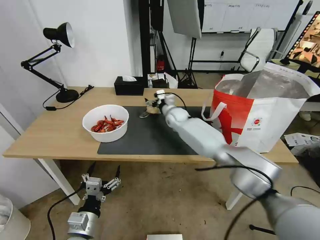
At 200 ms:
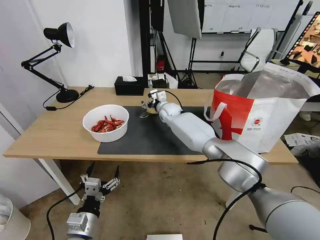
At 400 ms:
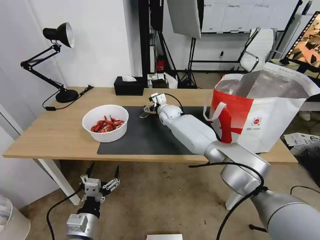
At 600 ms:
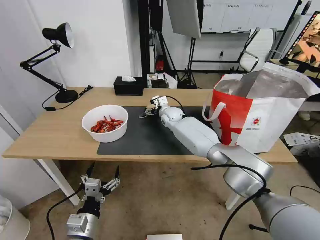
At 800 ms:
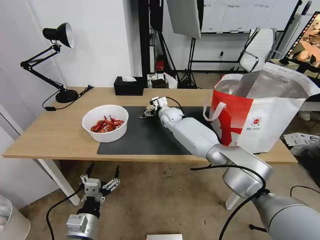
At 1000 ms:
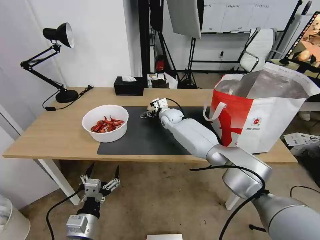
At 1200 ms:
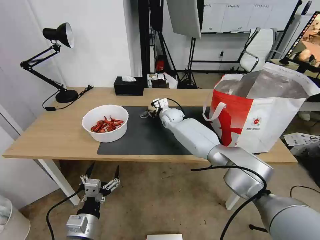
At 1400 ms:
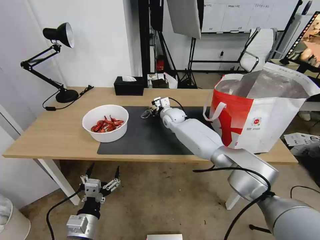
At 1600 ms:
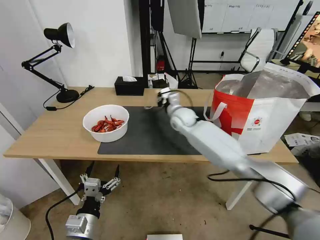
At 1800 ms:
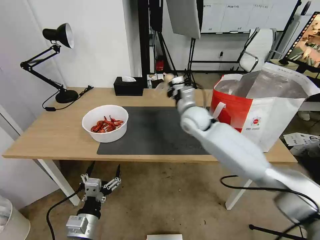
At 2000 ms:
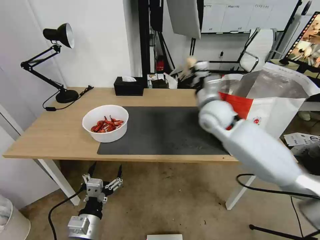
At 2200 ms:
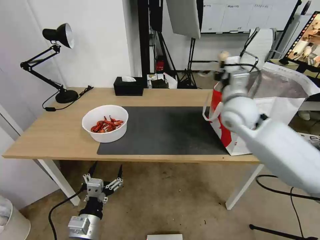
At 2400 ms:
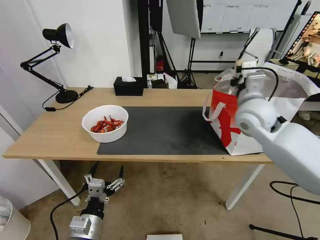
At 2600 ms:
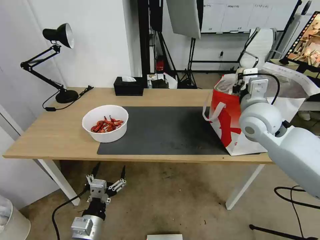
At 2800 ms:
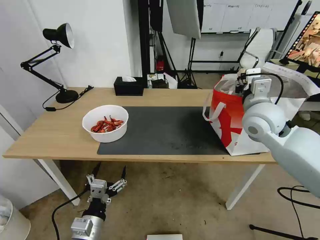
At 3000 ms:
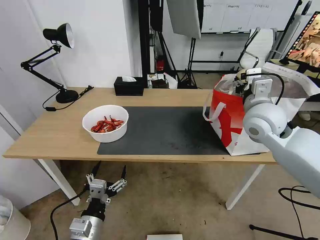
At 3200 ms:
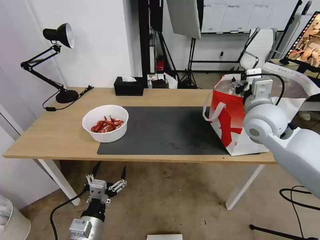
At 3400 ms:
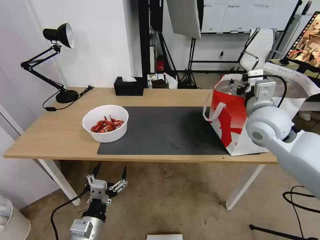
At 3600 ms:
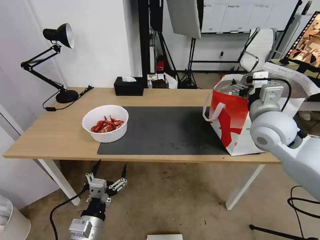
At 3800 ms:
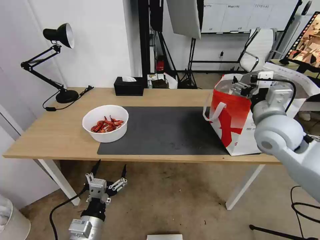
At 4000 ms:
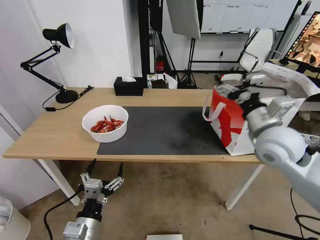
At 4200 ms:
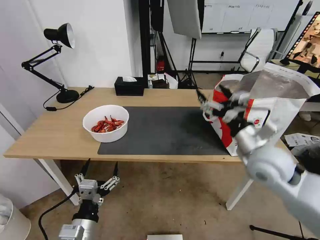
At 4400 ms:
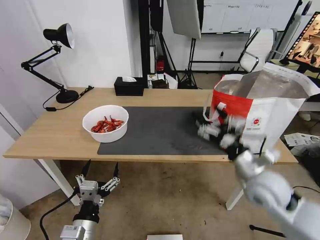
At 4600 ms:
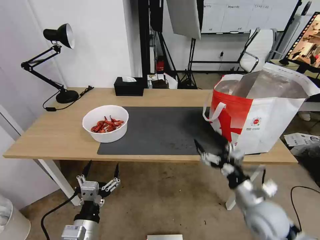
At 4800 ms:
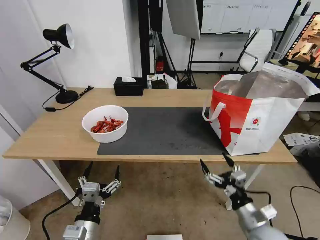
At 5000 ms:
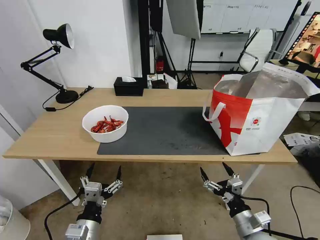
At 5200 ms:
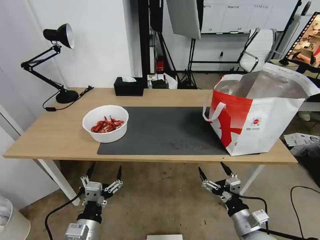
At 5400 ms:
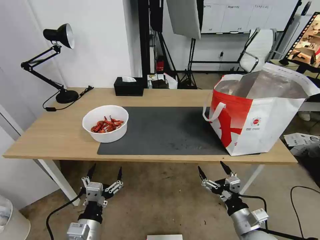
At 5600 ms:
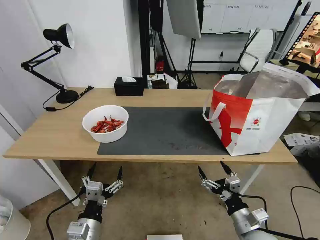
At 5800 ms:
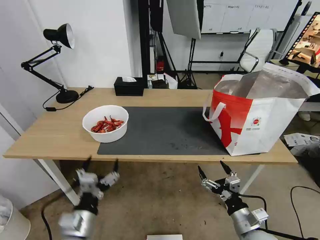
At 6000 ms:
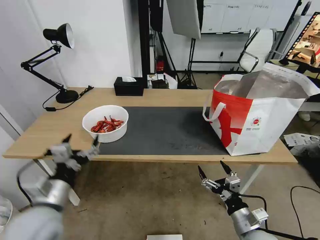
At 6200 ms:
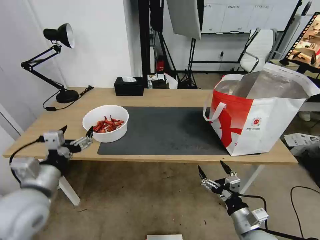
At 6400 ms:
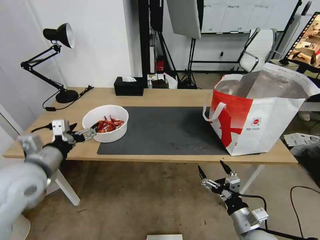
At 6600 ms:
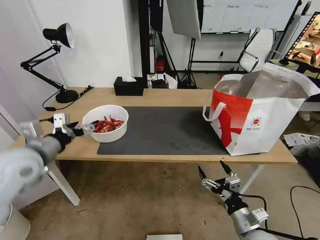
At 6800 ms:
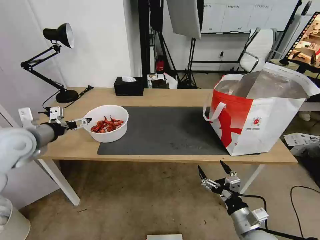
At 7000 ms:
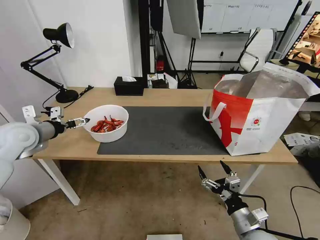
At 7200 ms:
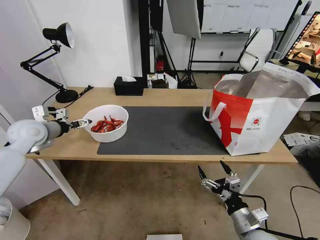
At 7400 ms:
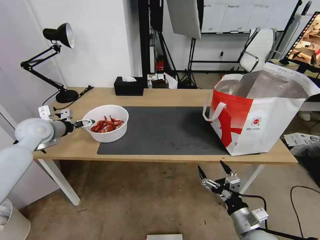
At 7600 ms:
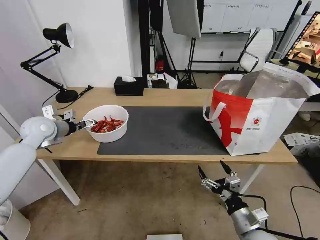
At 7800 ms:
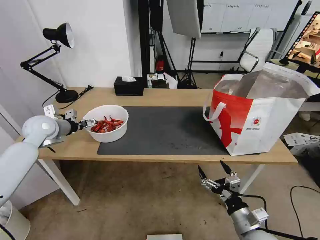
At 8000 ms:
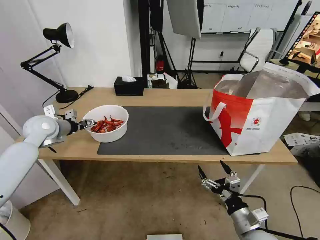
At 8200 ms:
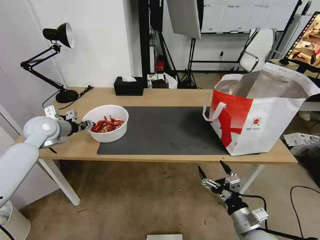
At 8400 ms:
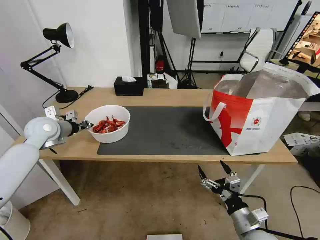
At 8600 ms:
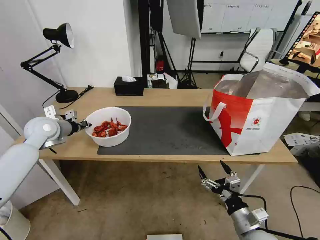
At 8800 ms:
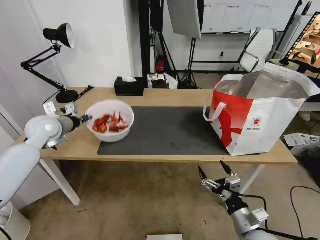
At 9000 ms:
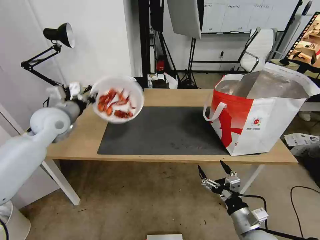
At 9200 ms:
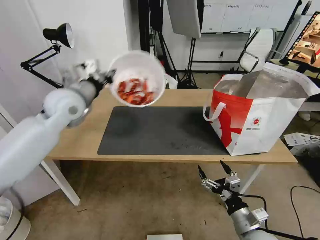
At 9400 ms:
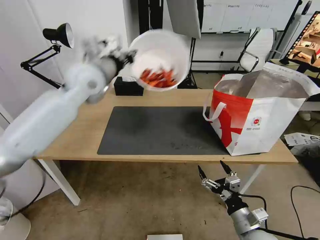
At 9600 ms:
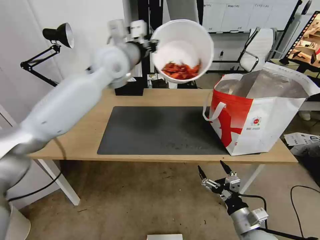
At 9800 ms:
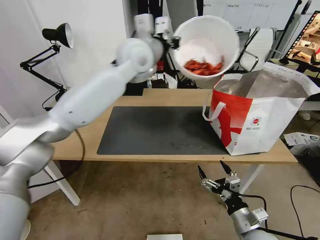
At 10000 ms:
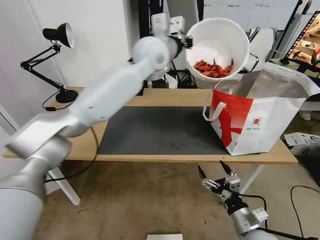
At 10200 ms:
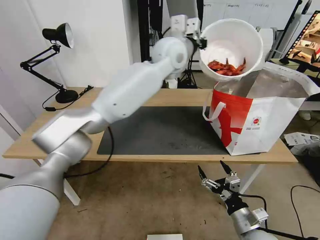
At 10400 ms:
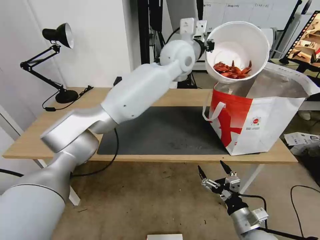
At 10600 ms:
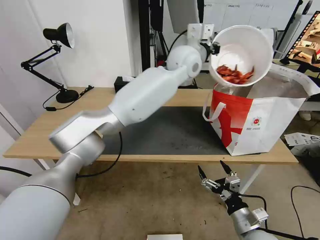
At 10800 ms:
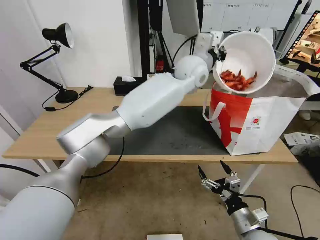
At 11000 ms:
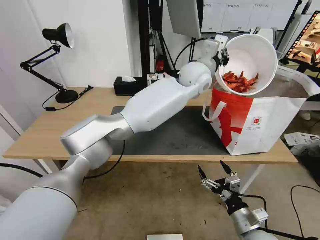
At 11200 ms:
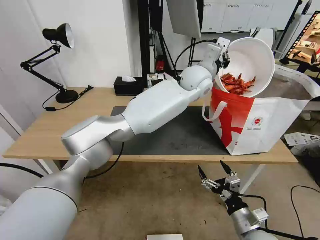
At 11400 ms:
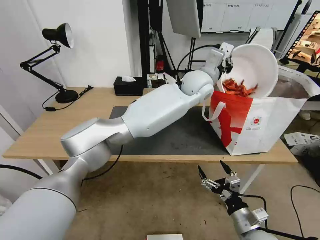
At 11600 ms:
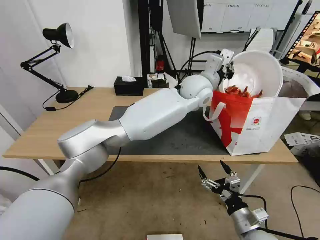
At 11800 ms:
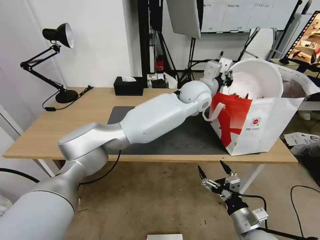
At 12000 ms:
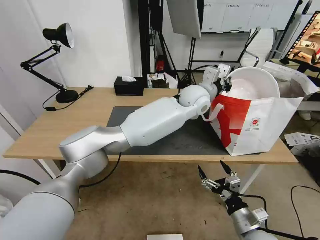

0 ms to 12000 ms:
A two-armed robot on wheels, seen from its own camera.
Task of the whole recording: Pick up the trash from the table and place it into the takeout bag.
0 ms to 1600 ms: The right gripper goes about 5 cm backward, and closes its fingers.
1600 ms to 3000 ms: The right gripper goes about 25 cm to the right, backward and upward, and opens.
3000 ms to 4400 ms: The right gripper heads backward and downward, covering roughly 20 cm, and opens its fingers.
4400 ms to 6000 ms: The left gripper heads upward, forward and to the left, covering about 10 cm, while the right gripper goes approximately 20 cm downward and backward.
6000 ms to 7600 ms: The left gripper moves forward and to the left, approximately 30 cm.
7600 ms to 9000 ms: The left gripper is displaced to the right by approximately 5 cm, and closes up.
9000 ms to 10400 ms: The left gripper travels to the right by about 40 cm.
10400 ms to 12000 ms: The left gripper shifts approximately 15 cm downward and to the right.

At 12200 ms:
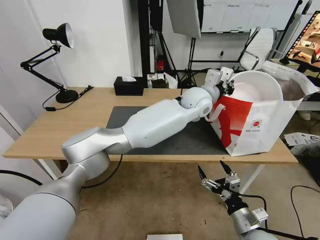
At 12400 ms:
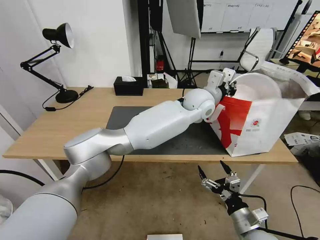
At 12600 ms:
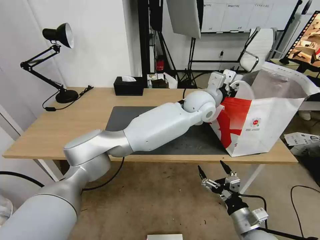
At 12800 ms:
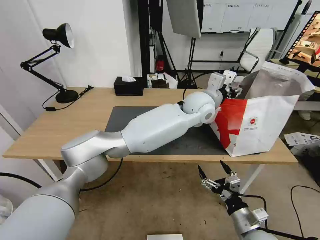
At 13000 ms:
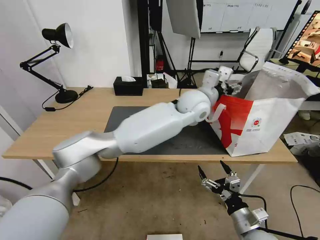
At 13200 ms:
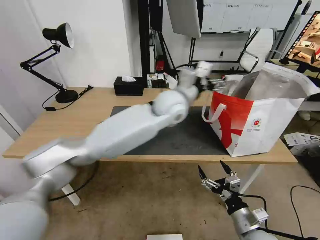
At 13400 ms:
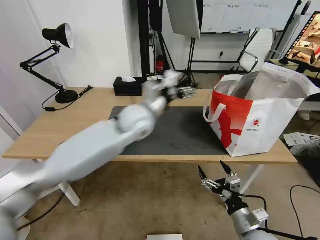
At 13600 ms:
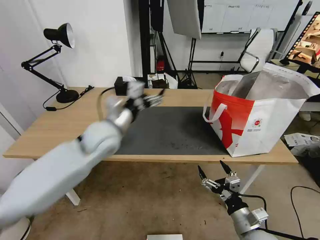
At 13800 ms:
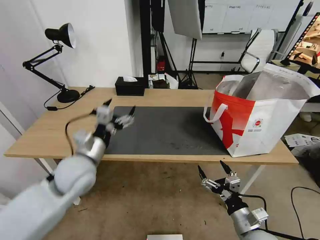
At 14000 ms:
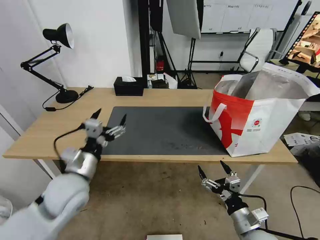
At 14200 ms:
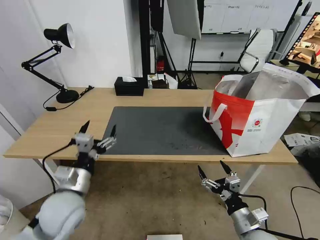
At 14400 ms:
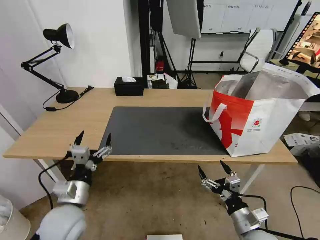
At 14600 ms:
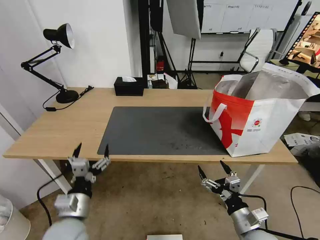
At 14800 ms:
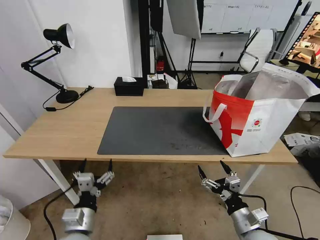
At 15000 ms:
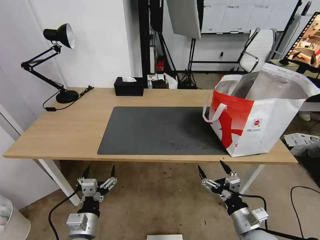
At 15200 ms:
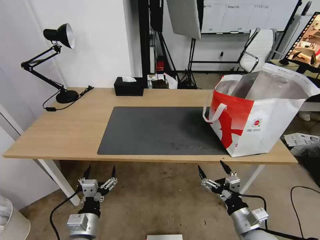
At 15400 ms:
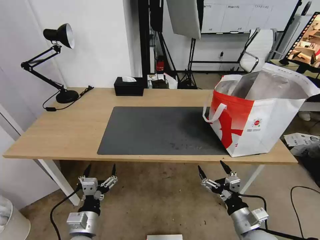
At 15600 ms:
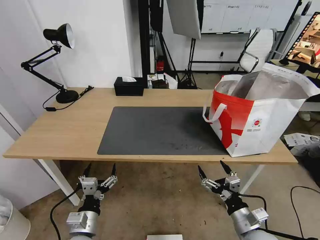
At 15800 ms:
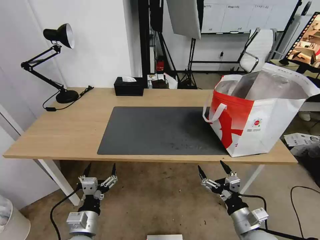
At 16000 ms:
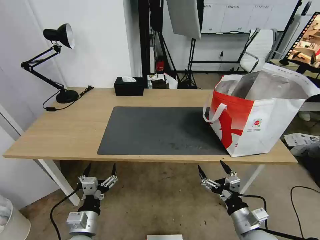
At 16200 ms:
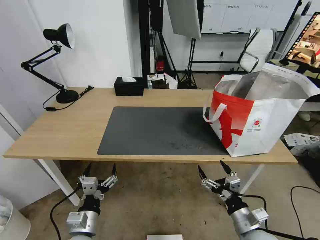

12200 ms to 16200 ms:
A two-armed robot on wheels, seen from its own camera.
Task of the whole recording: Pick up the trash from the table and place it into the takeout bag.
12200 ms to 13600 ms: The left gripper moves to the left and backward, about 30 cm, and opens.
13600 ms to 14800 ms: The left gripper travels backward and downward by roughly 30 cm.
14800 ms to 16200 ms: The grippers move only a little.

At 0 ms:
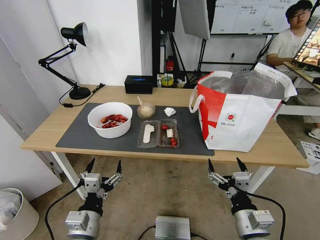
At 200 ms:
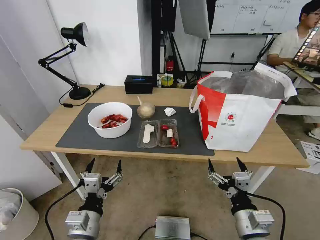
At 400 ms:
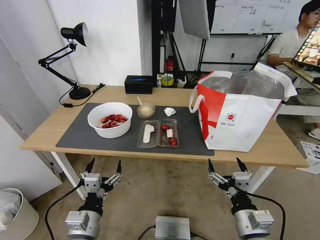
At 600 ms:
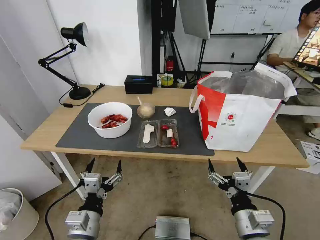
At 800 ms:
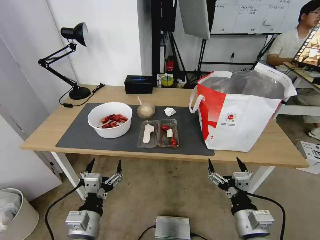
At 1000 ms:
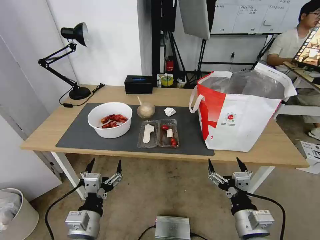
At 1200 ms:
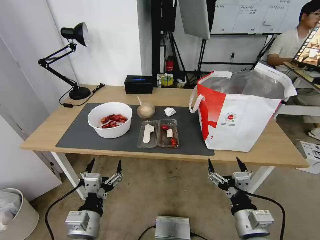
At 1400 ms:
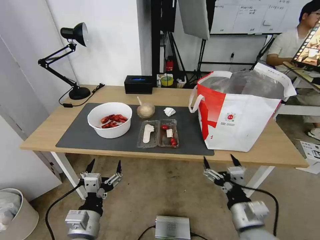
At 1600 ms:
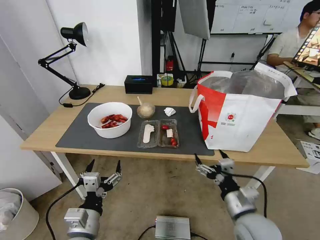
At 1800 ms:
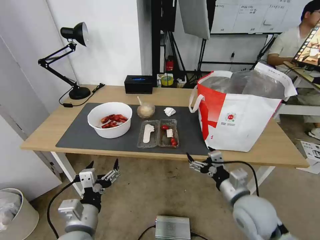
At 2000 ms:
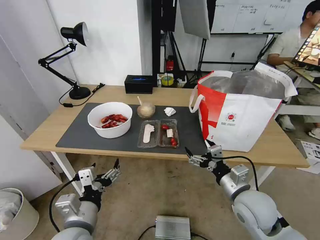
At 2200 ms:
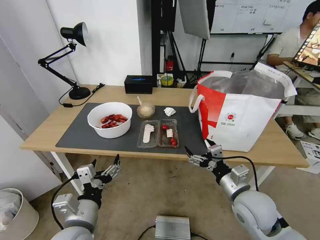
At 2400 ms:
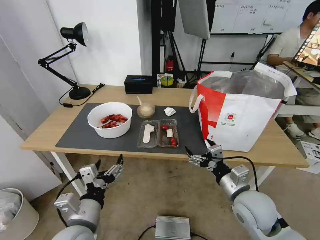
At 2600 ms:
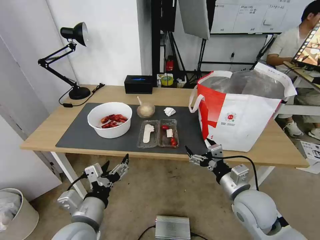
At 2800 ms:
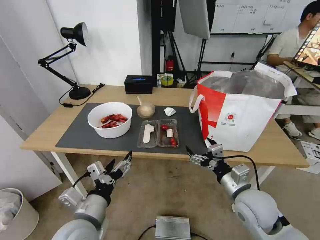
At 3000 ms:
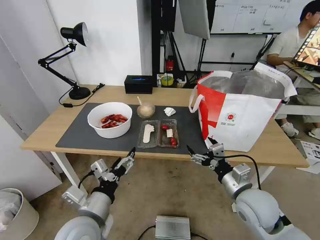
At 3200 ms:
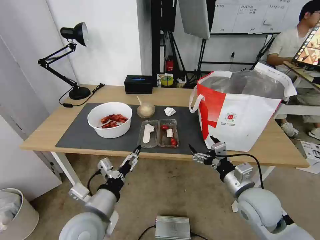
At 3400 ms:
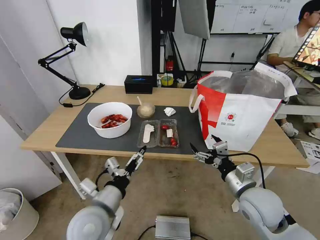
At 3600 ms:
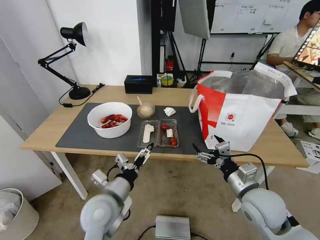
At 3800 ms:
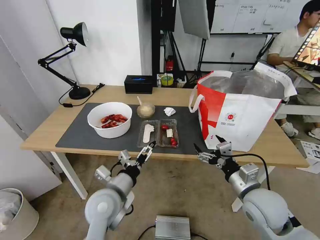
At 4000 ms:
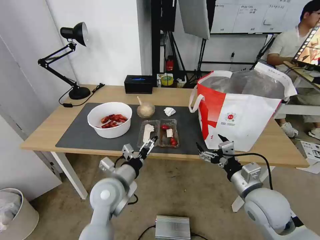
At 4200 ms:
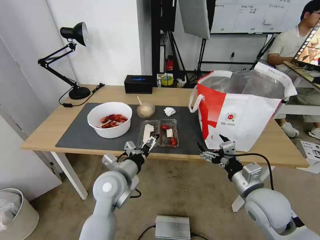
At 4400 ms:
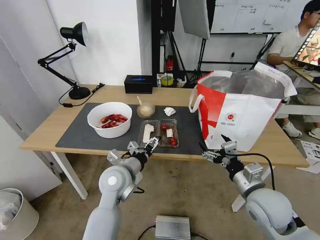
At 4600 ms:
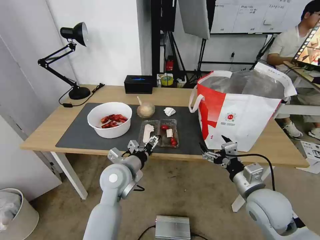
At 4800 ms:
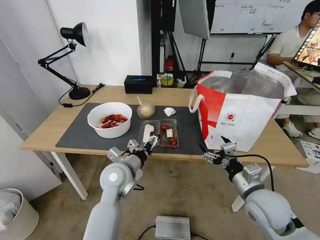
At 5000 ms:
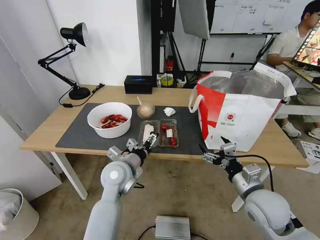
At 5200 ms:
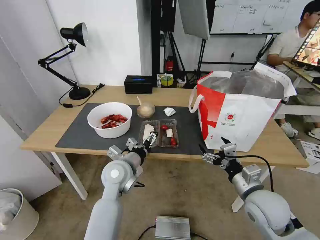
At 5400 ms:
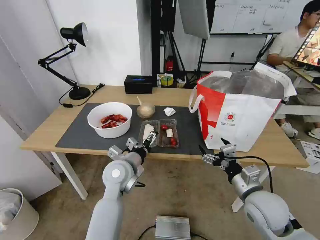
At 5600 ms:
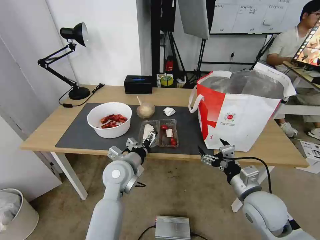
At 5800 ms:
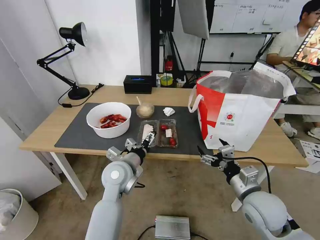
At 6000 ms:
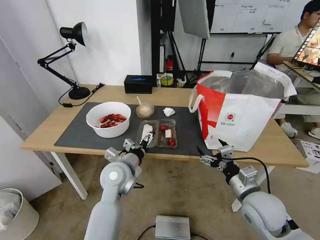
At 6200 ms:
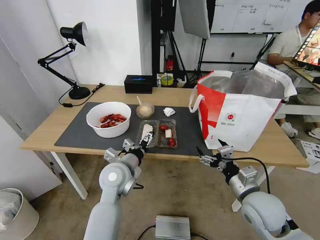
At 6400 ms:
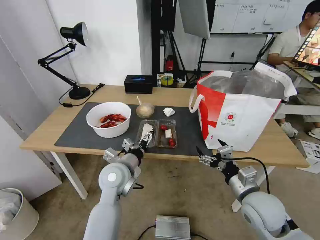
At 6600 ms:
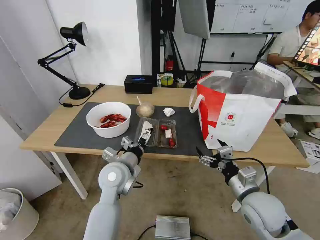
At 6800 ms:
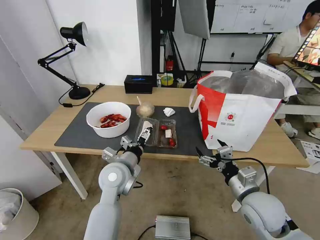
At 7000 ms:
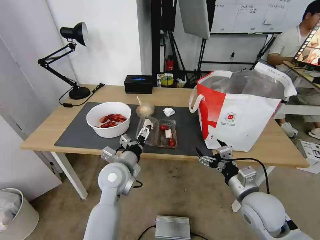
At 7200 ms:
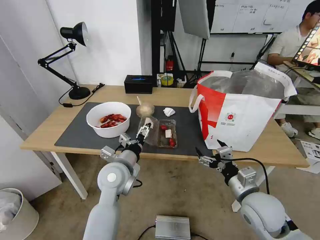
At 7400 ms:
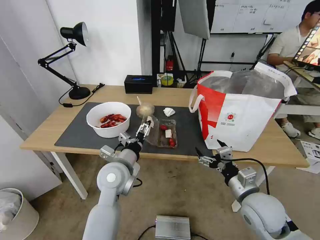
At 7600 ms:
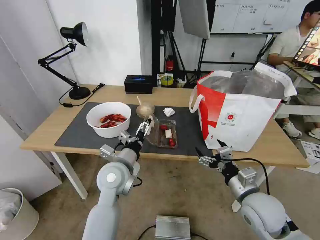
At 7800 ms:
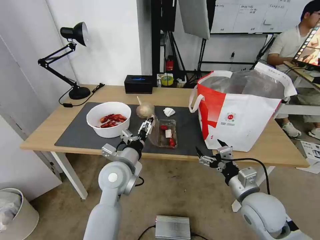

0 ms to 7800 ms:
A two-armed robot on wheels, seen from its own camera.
Task of the whole recording: Pick up the trash from the table and place it into the takeout bag.
1600 ms to 3200 ms: The left gripper changes place by some 5 cm; the right gripper is displaced forward by approximately 5 cm.
3200 ms to 4600 ms: The left gripper travels forward by about 15 cm.
4600 ms to 7800 ms: There are only small adjustments of the grippers.